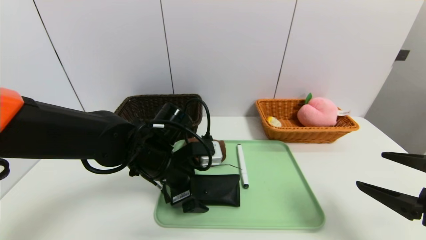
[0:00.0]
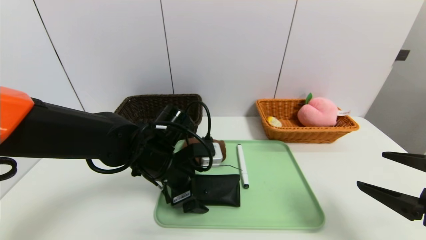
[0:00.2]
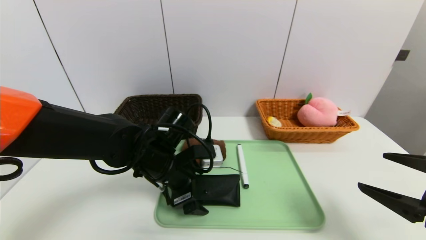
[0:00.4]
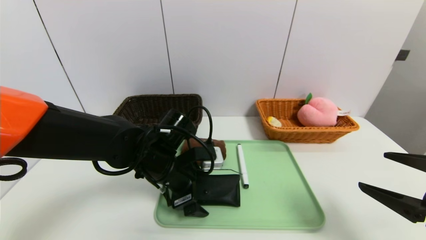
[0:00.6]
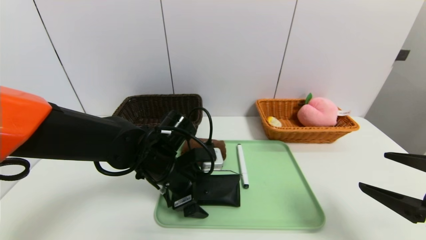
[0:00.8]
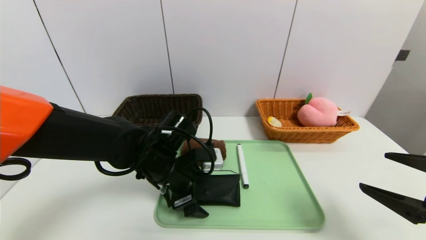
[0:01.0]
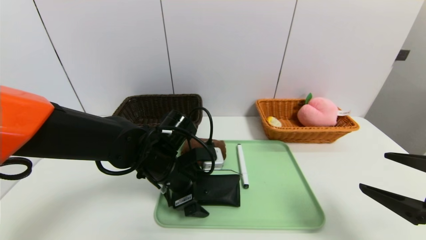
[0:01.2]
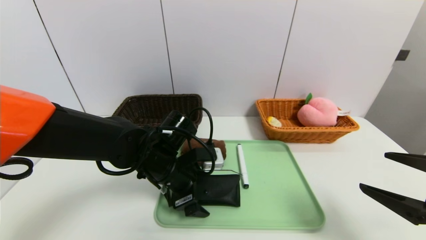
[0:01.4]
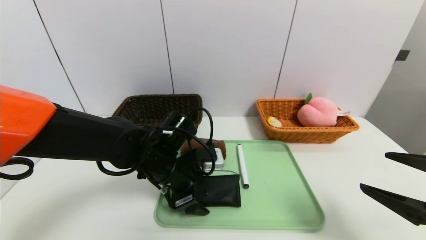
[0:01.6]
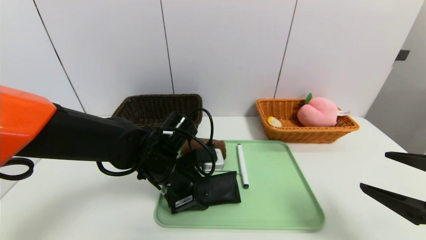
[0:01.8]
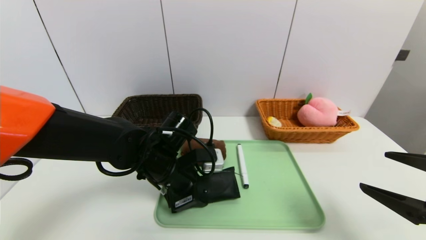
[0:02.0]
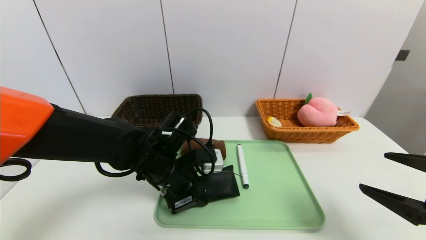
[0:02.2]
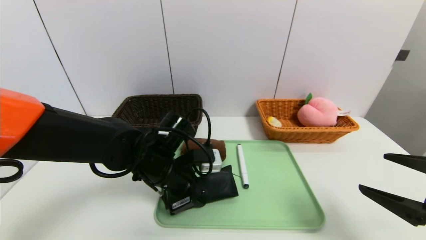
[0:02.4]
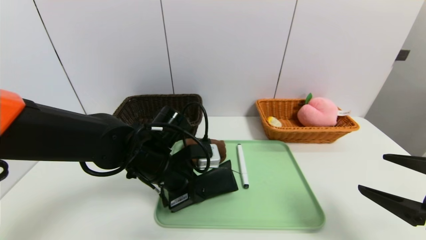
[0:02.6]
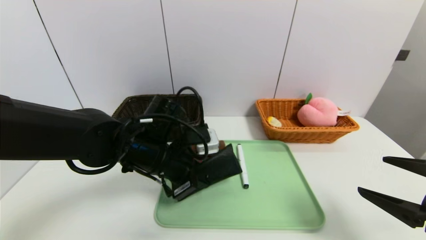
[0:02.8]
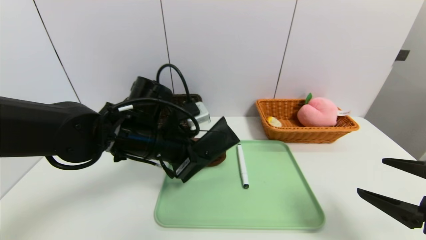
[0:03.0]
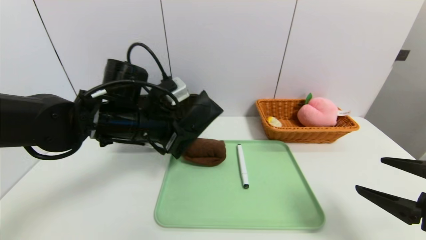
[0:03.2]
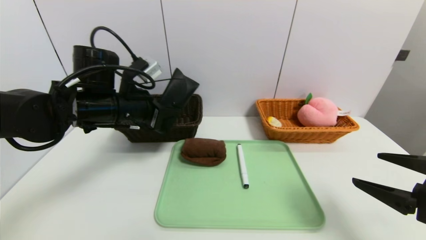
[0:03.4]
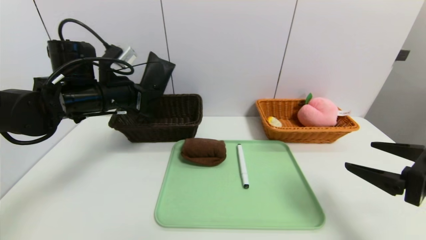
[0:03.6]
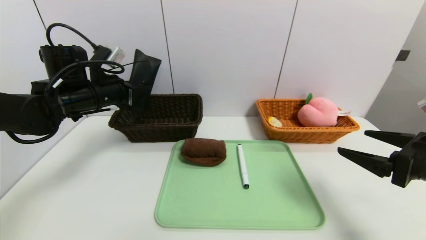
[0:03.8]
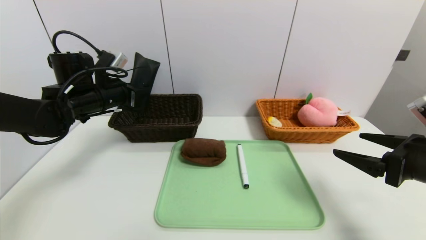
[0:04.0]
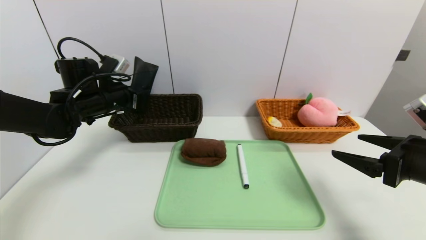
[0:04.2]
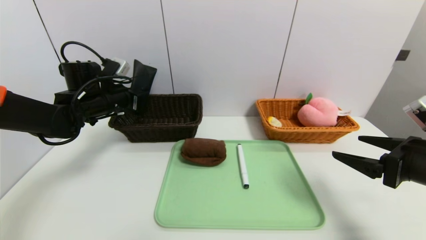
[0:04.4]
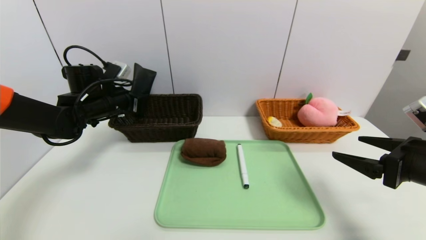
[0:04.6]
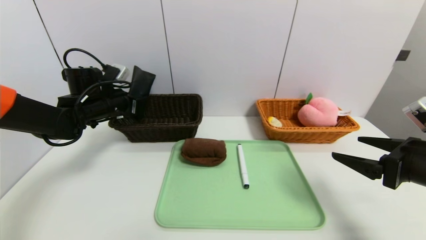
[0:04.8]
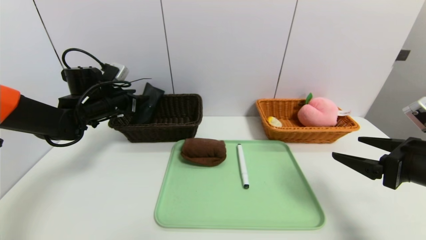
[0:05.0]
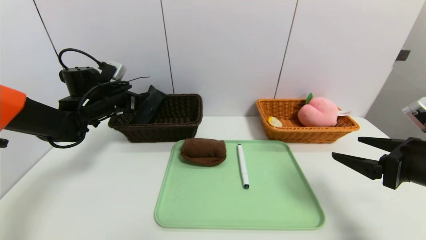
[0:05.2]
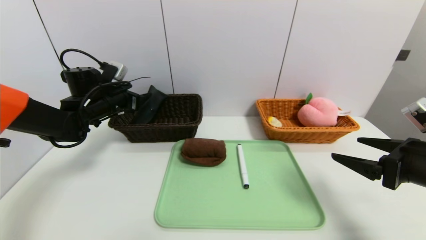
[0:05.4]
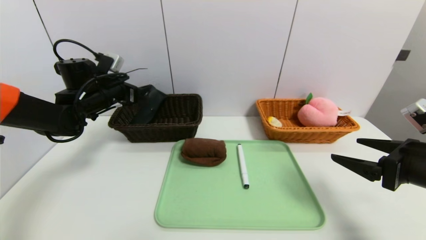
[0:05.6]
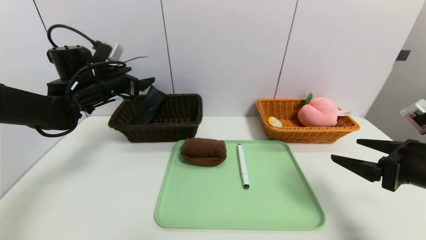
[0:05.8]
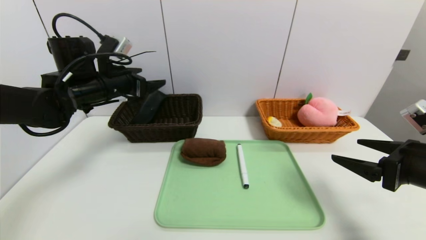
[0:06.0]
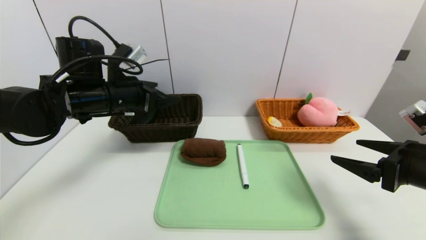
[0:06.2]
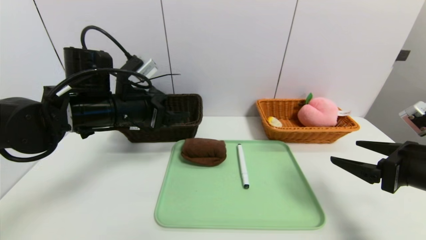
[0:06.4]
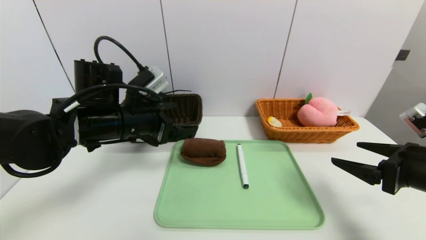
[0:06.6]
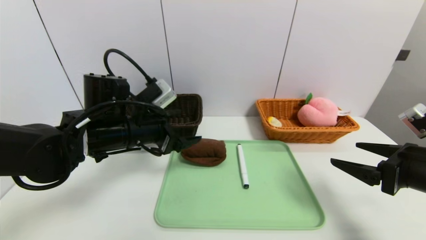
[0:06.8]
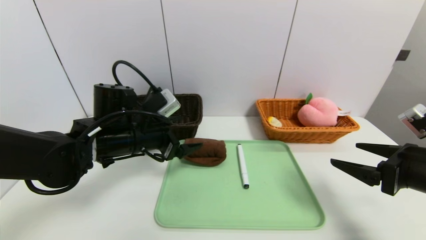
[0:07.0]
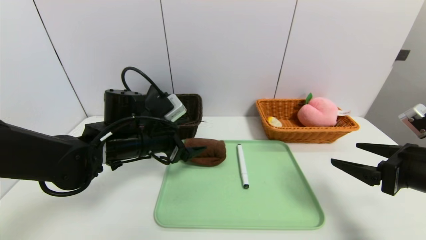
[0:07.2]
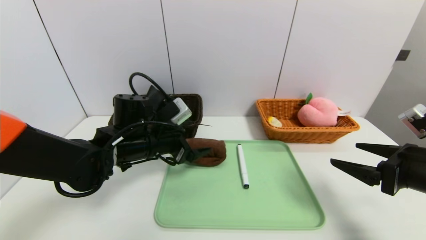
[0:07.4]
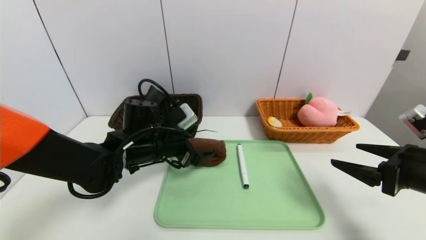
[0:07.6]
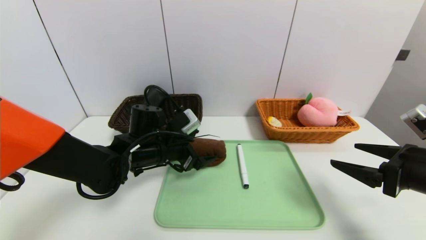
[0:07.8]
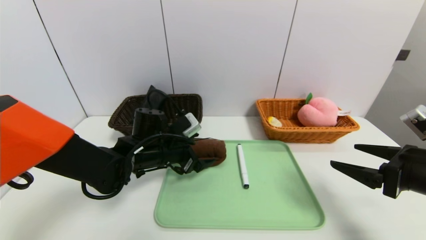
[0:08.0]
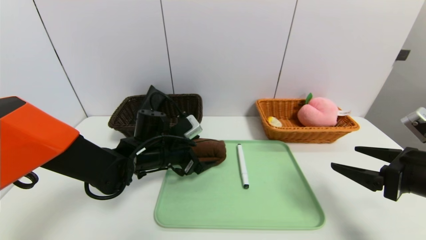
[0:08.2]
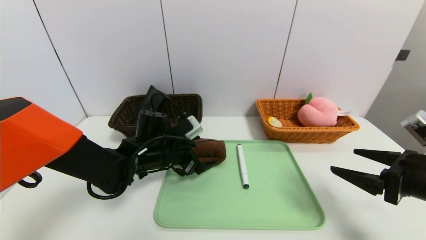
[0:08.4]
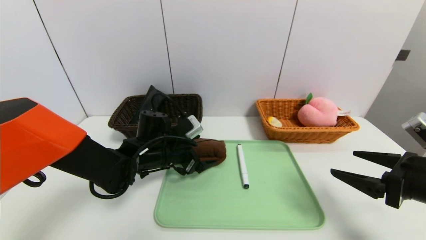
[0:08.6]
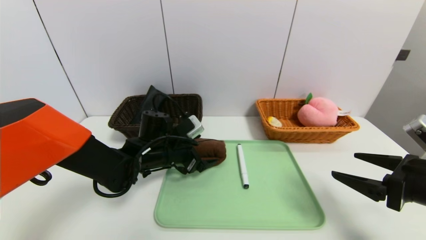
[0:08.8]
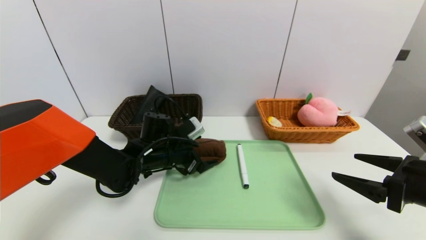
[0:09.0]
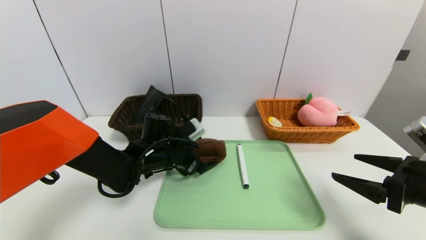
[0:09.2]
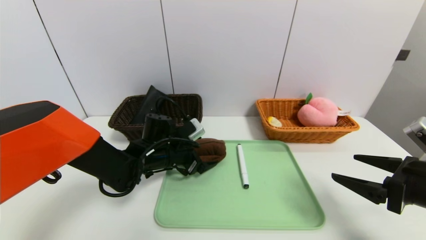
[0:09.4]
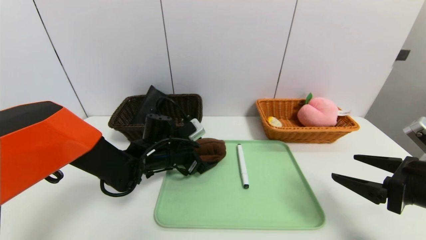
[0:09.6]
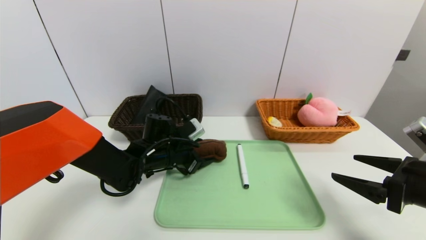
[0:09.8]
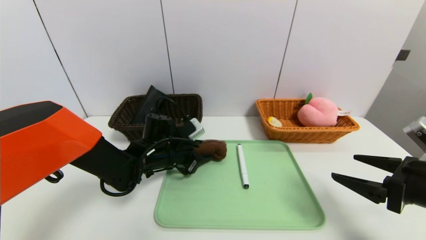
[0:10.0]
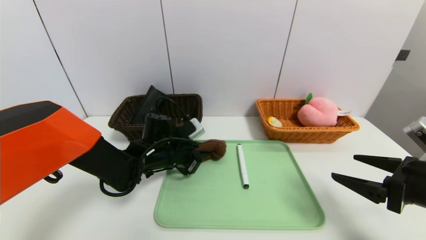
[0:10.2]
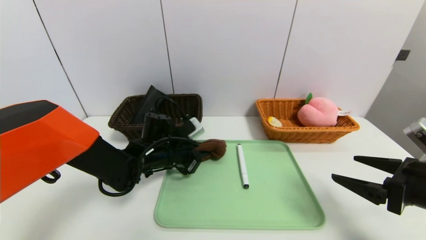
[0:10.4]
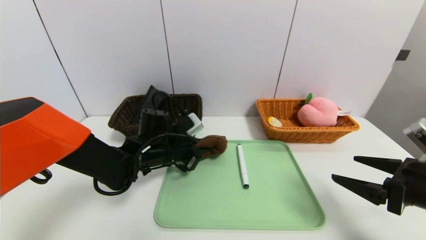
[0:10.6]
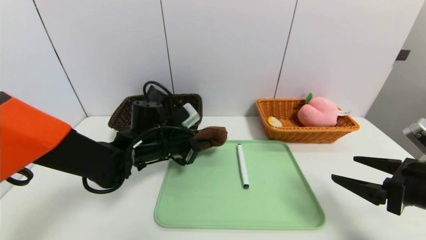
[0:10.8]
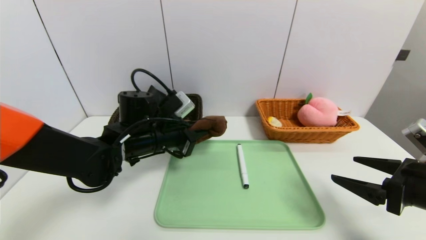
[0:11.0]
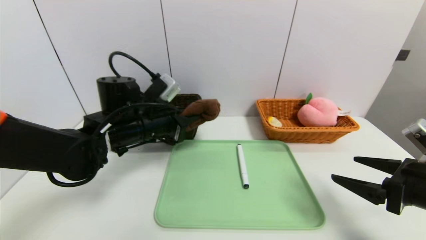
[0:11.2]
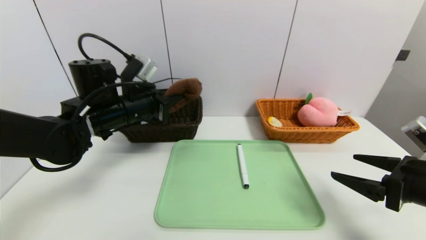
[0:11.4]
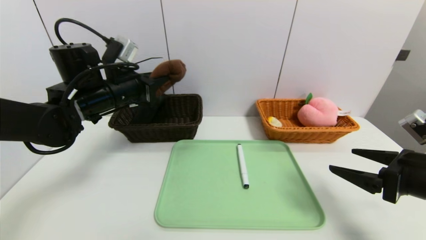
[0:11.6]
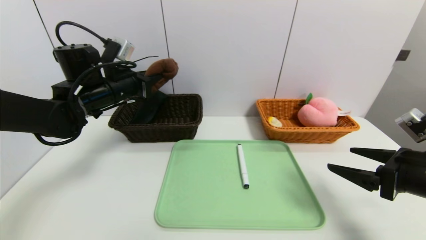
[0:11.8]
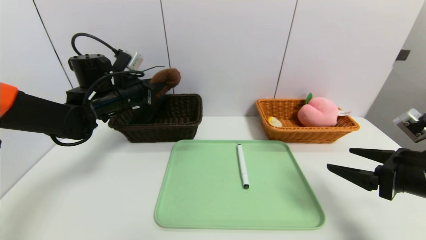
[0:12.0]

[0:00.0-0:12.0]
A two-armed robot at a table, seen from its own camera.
Task of the whole recording: place the food in the right basket with the right gripper, and place the non food items in the left basket with the left gripper.
Step, 0:00.0 to 0:05.6: Grasp the glasses case and put it in the left basket.
0:00.0 to 0:01.6: The grippers stay close to where they were, moving slightly.
0:01.6 to 0:03.0: The left gripper moves upward, about 5 cm, and closes.
0:03.0 to 0:04.4: The right gripper moves forward, about 5 cm. Meanwhile the left gripper shifts some 20 cm to the left and forward.
0:04.4 to 0:06.0: The left gripper goes some 5 cm upward, and opens.
0:06.0 to 0:07.6: The left gripper is displaced downward and to the right by about 15 cm.
0:07.6 to 0:09.0: The grippers stay close to where they were, moving slightly.
0:09.0 to 0:10.4: The left gripper closes.
0:10.4 to 0:12.0: The left gripper shifts about 15 cm upward, to the left and forward.

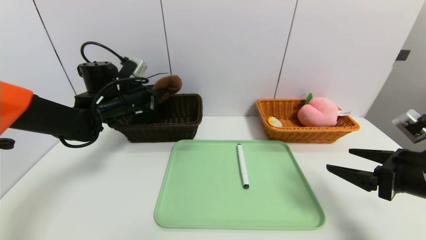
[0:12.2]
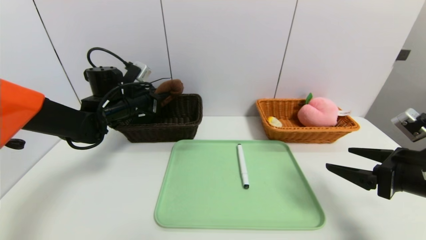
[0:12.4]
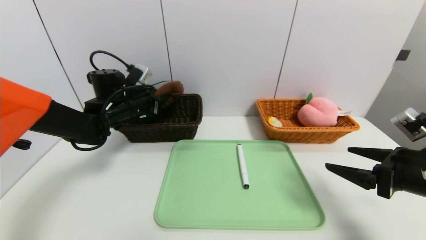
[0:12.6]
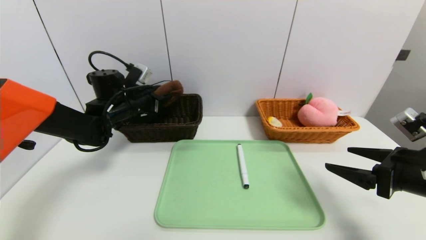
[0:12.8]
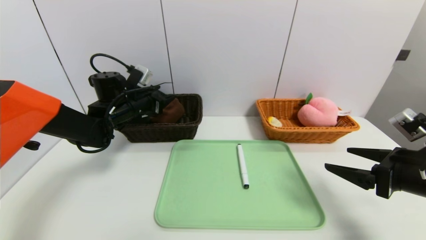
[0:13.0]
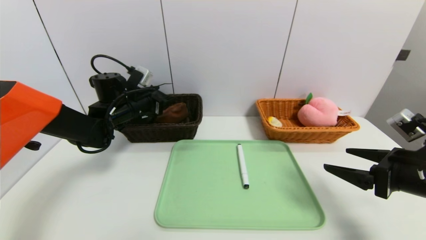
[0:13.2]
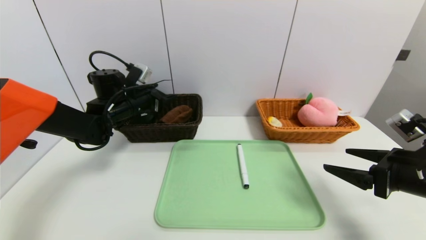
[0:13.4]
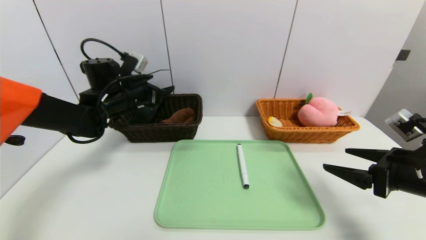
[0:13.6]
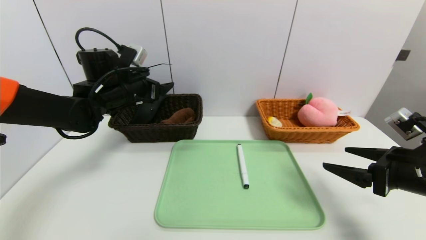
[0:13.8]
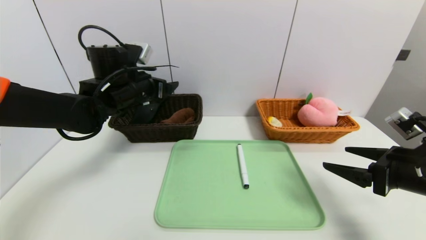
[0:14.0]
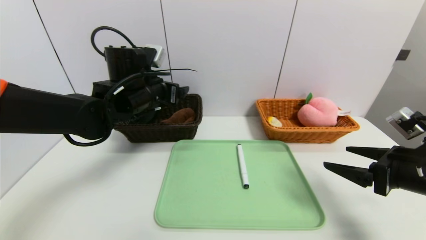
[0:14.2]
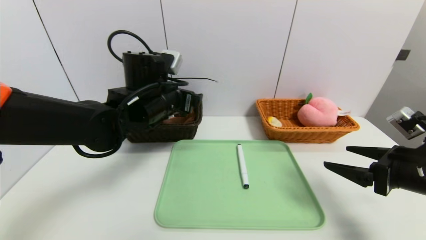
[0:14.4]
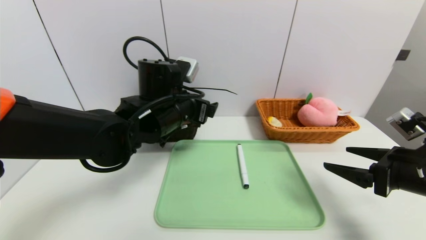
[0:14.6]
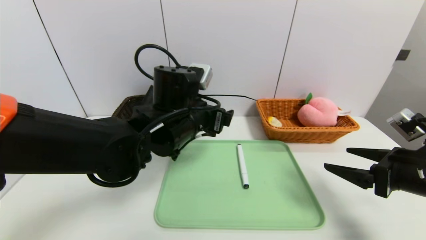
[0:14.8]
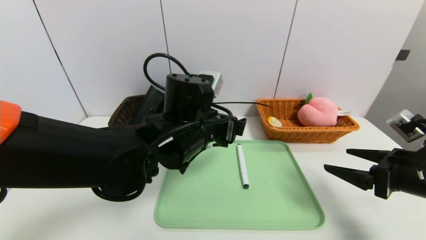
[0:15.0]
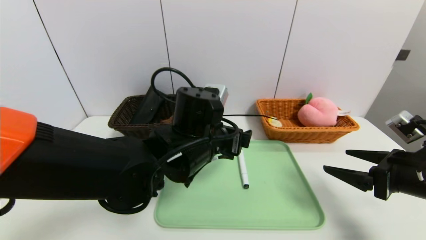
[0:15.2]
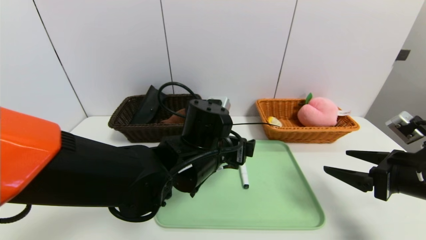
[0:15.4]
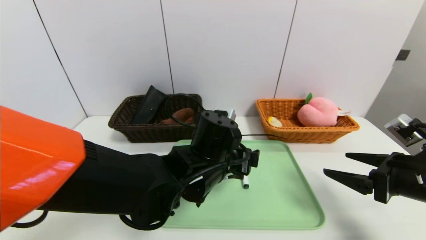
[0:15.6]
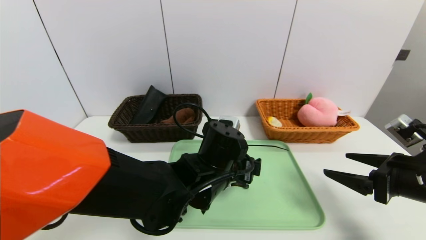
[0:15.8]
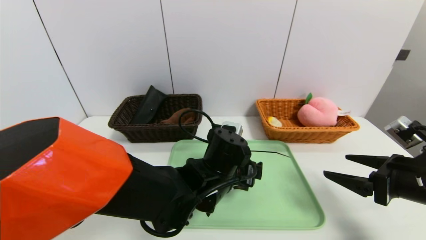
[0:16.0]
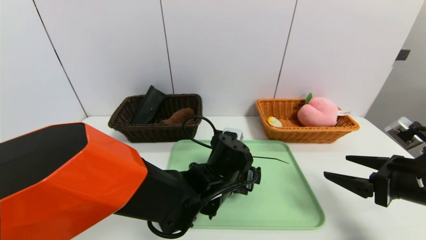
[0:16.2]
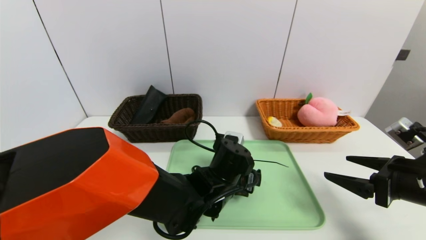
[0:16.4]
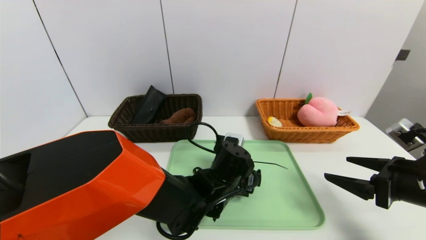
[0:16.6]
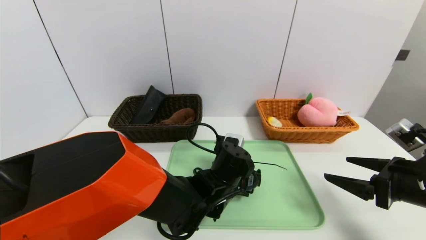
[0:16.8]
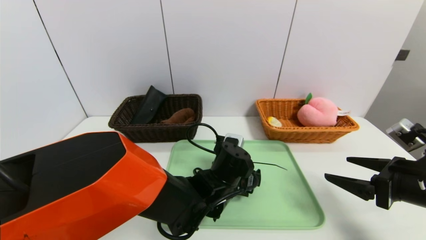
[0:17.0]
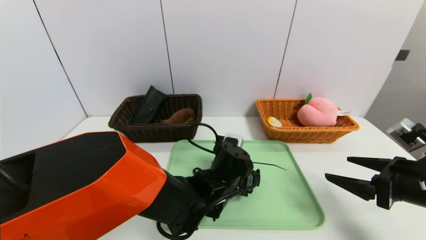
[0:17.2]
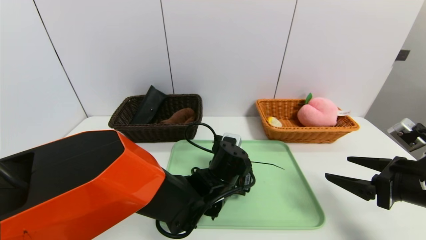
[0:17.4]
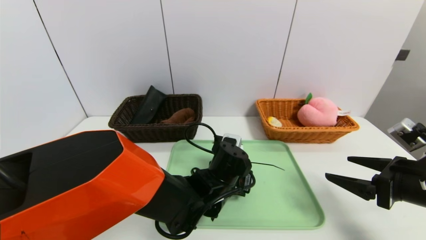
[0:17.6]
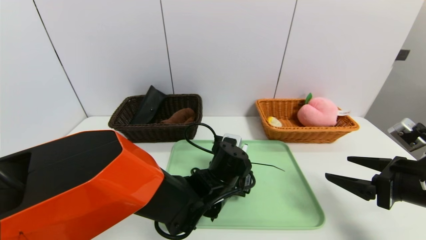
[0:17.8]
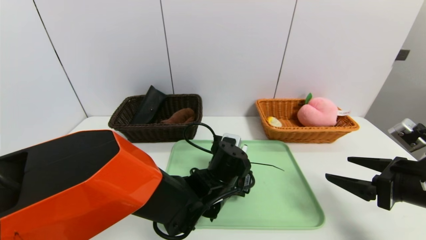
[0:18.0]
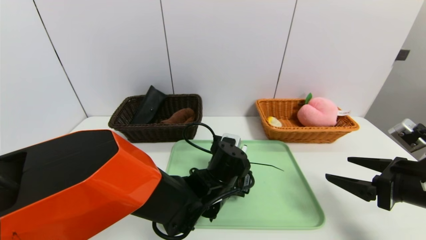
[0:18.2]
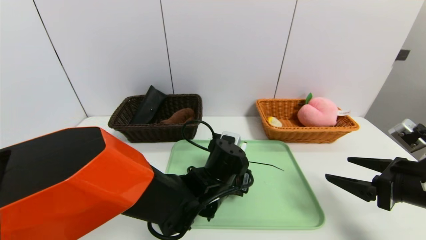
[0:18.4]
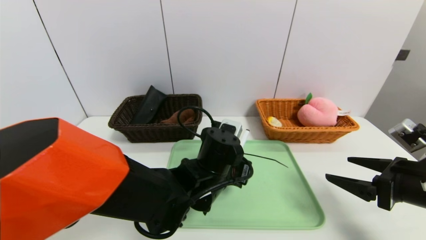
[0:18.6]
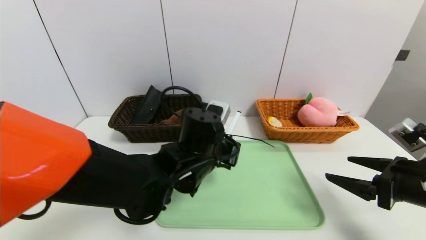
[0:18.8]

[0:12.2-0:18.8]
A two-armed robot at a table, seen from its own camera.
Task of the whole recording: place the food in the right basket with the right gripper, and place the non food items in the left basket with the left gripper.
0:12.2 to 0:13.8: The left gripper opens.
0:13.8 to 0:15.4: The left gripper goes about 25 cm to the right and backward.
0:15.4 to 0:17.2: The left gripper shifts roughly 10 cm downward.
0:17.2 to 0:18.8: The left gripper shifts about 10 cm upward, and closes up.
